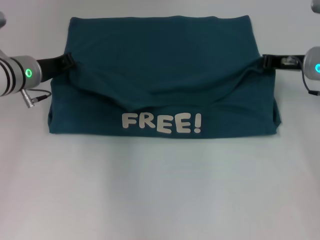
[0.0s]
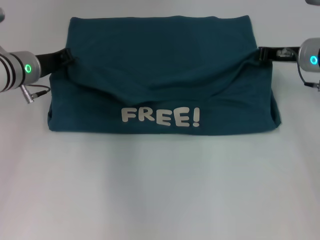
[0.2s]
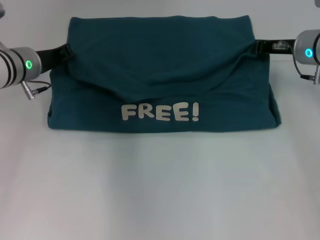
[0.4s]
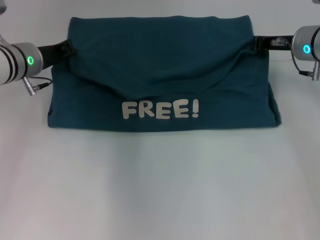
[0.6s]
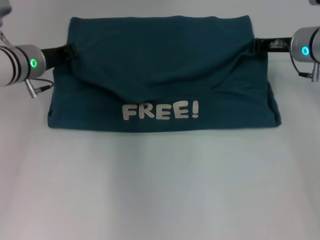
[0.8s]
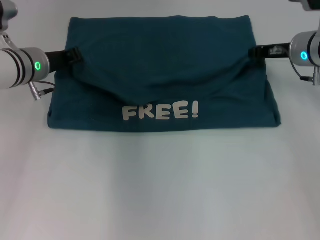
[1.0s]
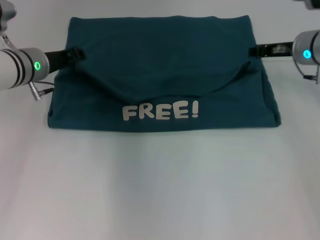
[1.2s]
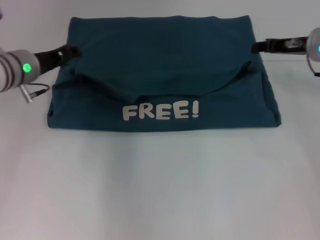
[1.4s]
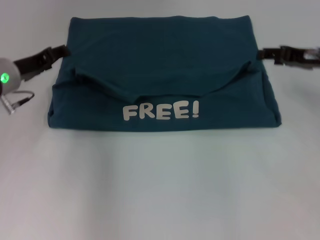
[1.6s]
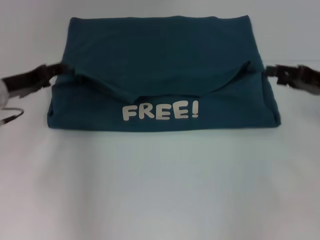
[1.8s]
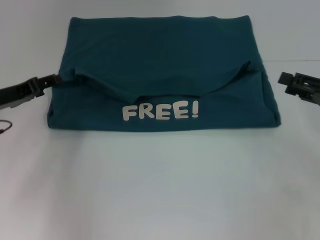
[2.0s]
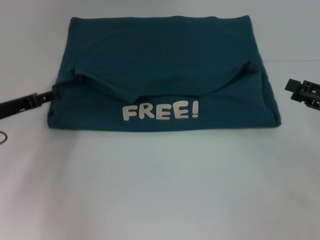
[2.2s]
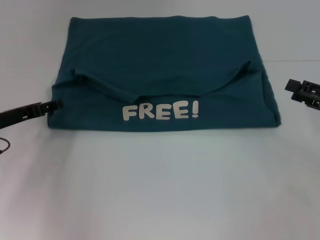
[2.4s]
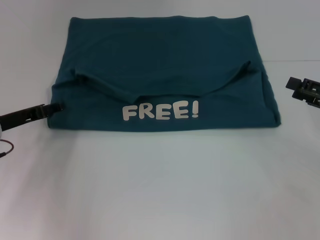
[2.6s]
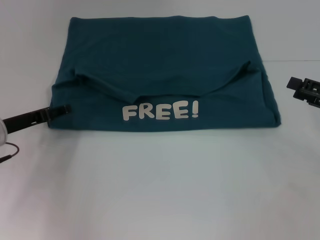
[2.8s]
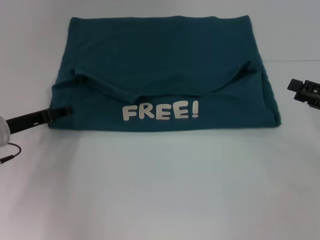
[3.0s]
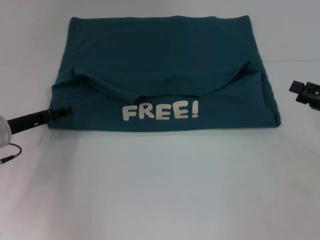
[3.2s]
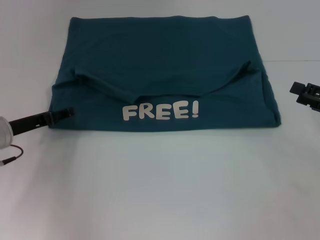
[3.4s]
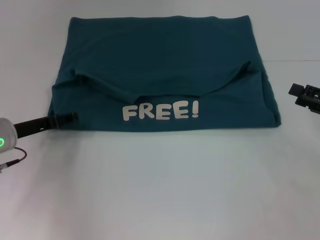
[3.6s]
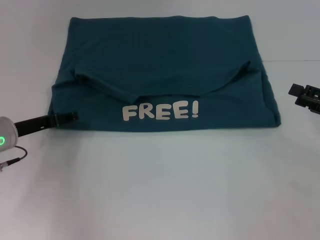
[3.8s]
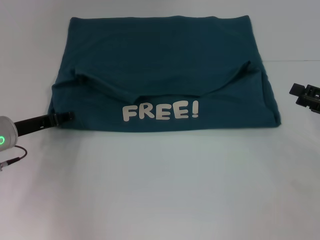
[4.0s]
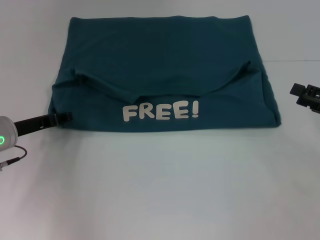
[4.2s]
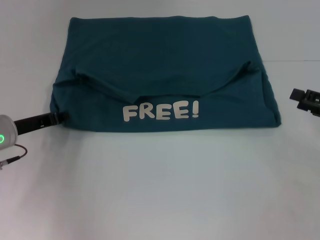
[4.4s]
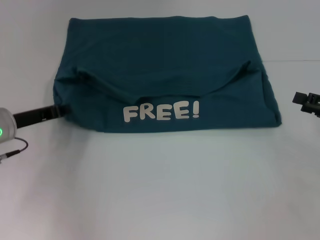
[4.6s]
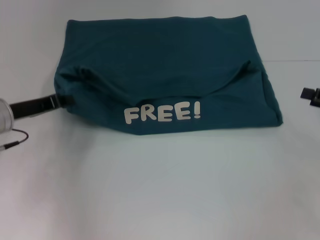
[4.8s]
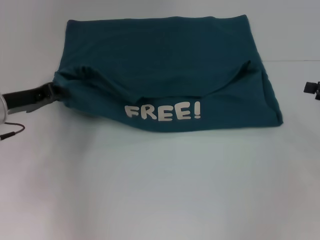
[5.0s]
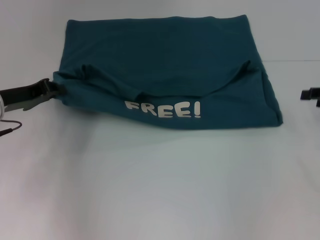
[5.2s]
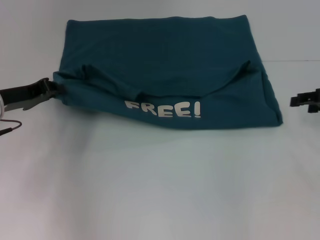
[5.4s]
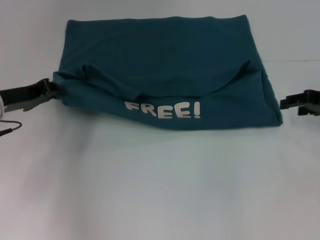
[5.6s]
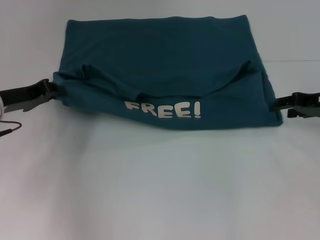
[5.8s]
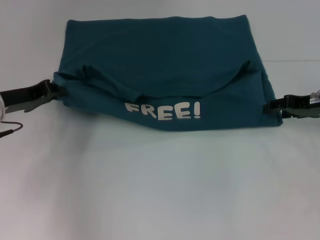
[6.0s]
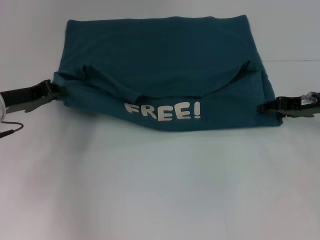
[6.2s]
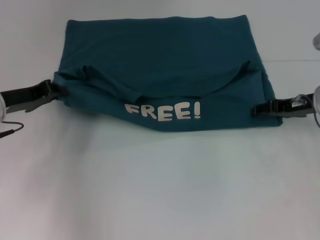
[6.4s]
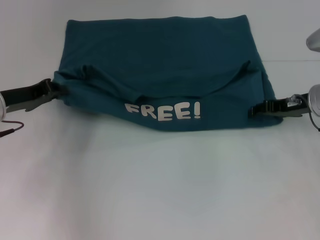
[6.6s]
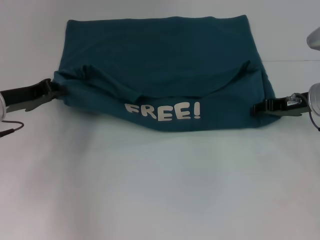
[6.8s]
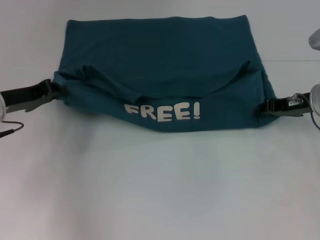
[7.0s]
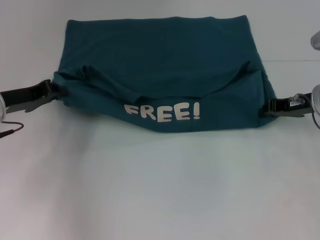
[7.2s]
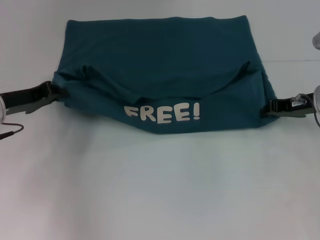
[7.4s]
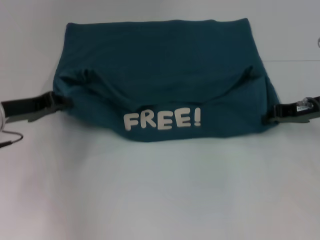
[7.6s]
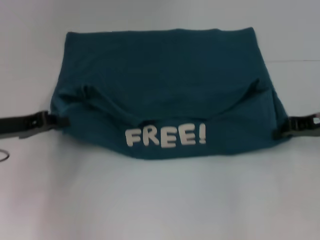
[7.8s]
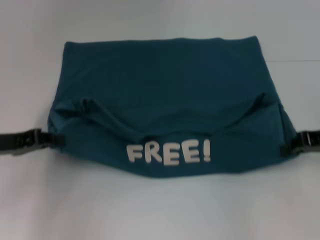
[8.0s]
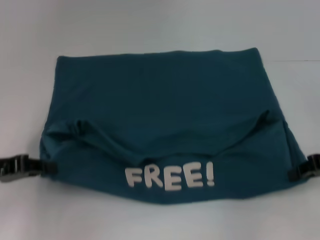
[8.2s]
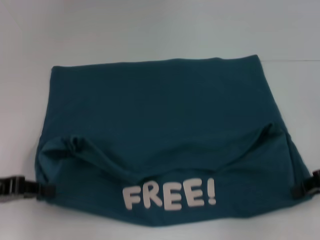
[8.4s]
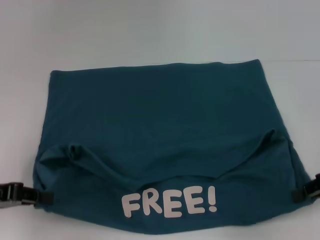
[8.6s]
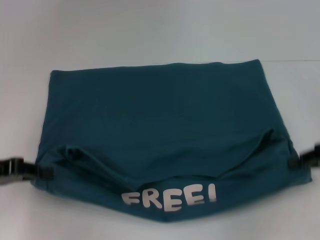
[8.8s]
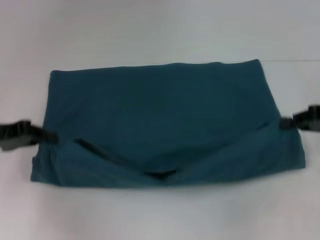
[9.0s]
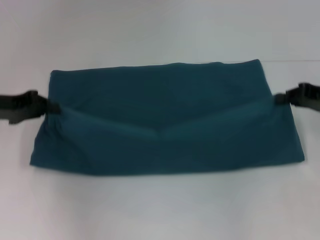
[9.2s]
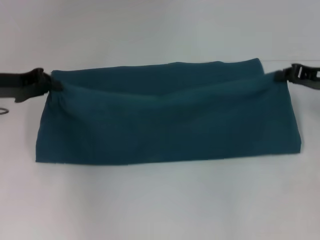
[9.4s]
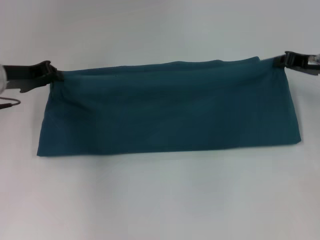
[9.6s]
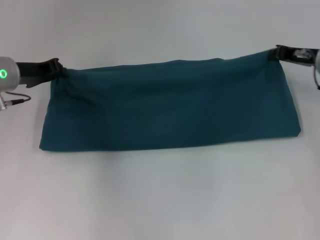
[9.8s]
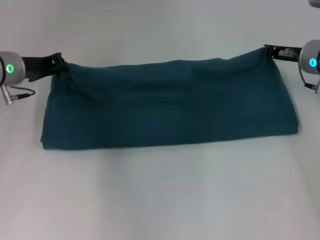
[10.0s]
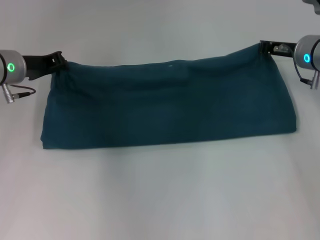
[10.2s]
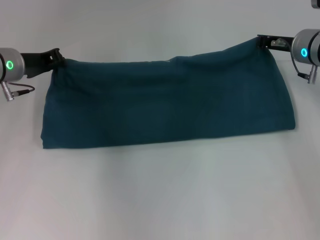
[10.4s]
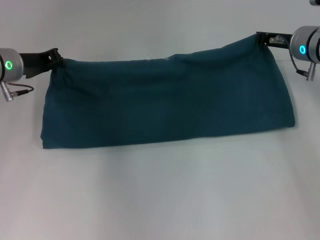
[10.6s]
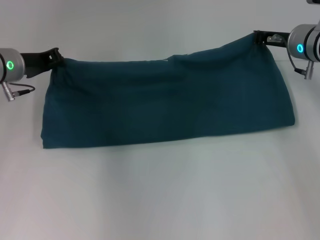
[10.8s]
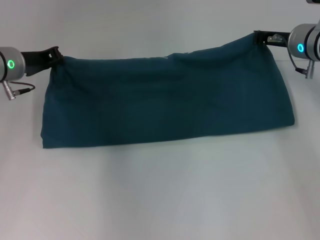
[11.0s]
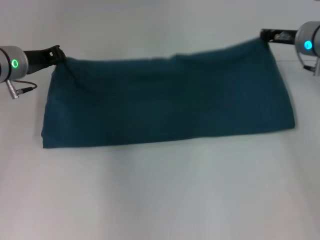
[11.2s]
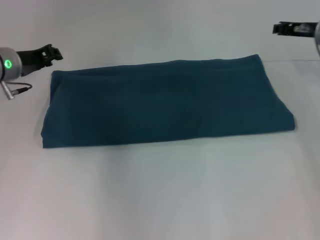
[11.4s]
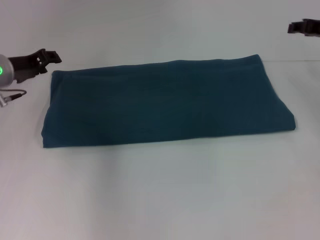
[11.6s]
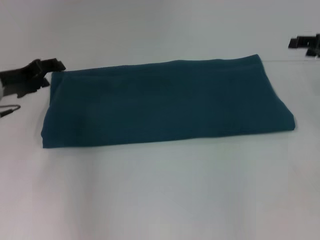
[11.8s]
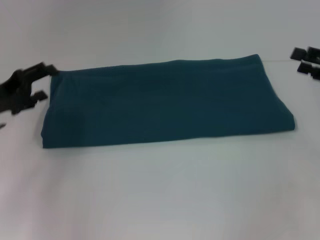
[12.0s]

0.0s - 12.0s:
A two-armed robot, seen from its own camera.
Step, 1.4s - 8.4s: Pull the clothes with your left hand.
Step, 1.4s - 8.4s: Pull the clothes with your right hand.
Step, 8.6s - 11.2s: Fold the clothes to the right.
0.0s - 1.6s: The left gripper opens; the right gripper opens up.
1.6s - 3.0s: The right gripper is displaced backward and to the right by approximately 15 cm; the left gripper is displaced downward and backward by approximately 10 cm.
3.0s - 4.4s: Both grippers stay put.
4.4s - 6.0s: The left gripper closes. Meanwhile the right gripper shifts about 10 cm forward and to the left.
6.0s - 7.6s: The right gripper closes its fingers.
7.6s - 9.0s: The right gripper goes roughly 10 cm backward and to the right.
9.0s - 10.4s: The right gripper shifts some 15 cm forward and to the left. Meanwhile the left gripper goes roughly 15 cm forward and to the right.
10.4s - 12.0s: The right gripper moves backward and to the right, approximately 15 cm, and opens up; the left gripper moves backward and to the left, roughly 10 cm, and opens its fingers.

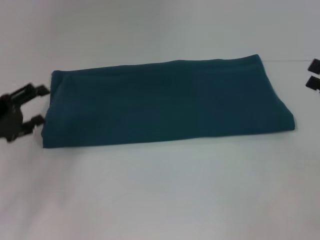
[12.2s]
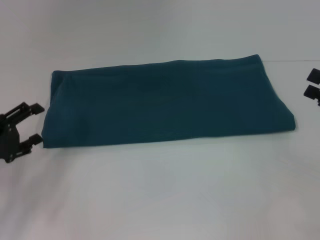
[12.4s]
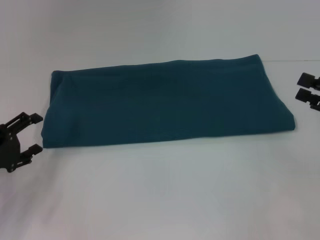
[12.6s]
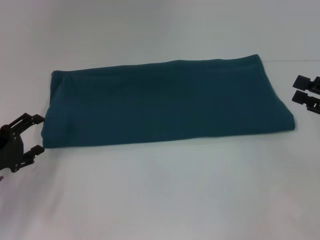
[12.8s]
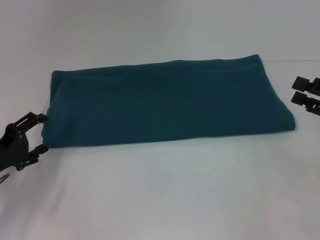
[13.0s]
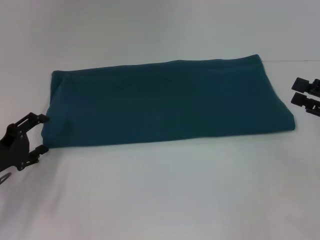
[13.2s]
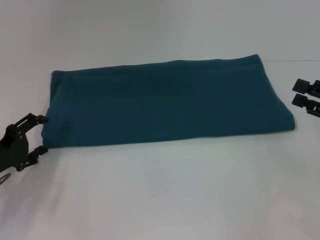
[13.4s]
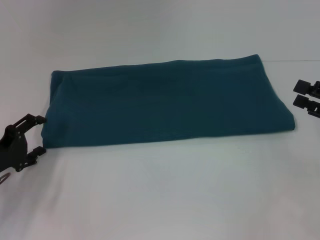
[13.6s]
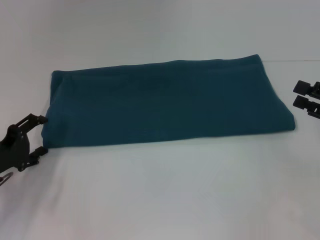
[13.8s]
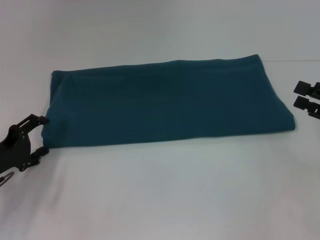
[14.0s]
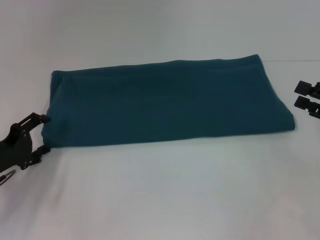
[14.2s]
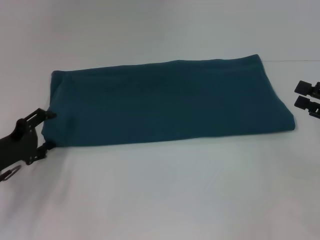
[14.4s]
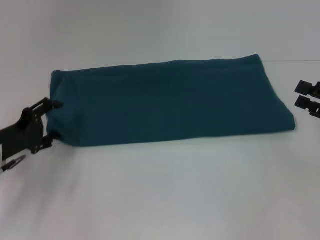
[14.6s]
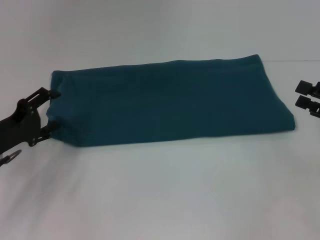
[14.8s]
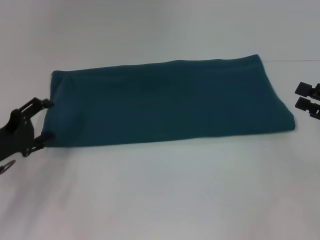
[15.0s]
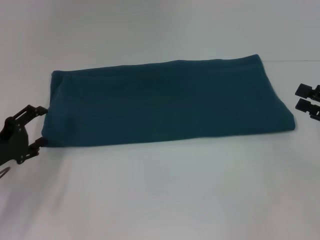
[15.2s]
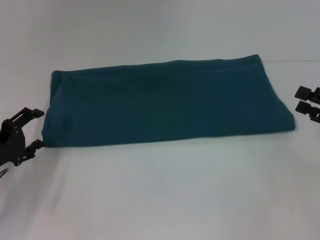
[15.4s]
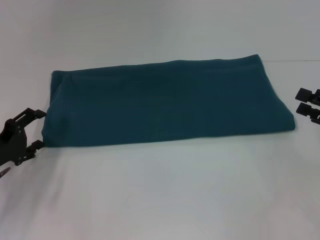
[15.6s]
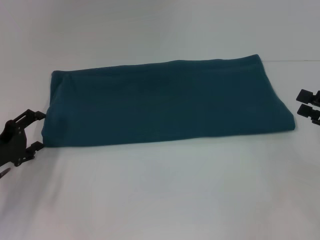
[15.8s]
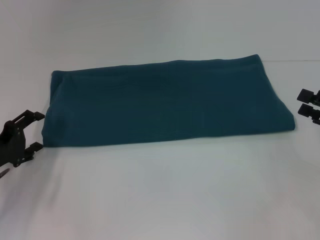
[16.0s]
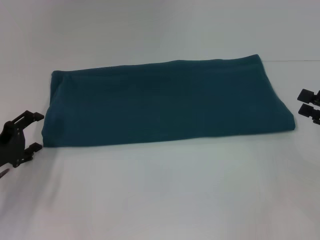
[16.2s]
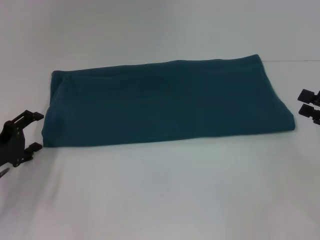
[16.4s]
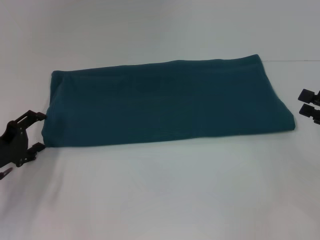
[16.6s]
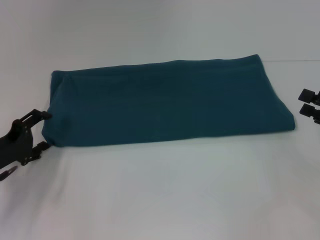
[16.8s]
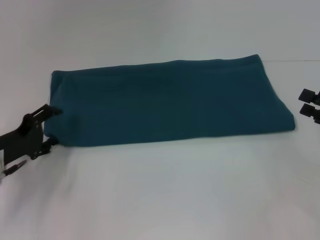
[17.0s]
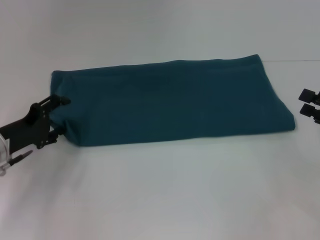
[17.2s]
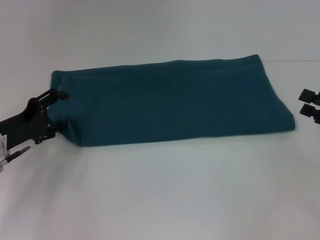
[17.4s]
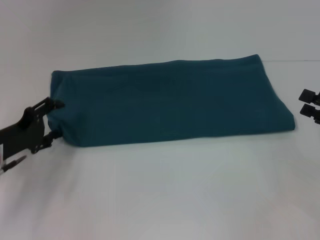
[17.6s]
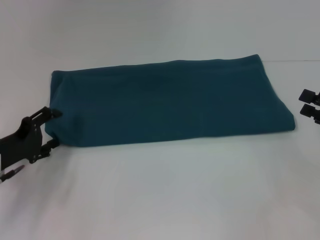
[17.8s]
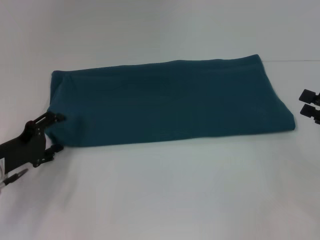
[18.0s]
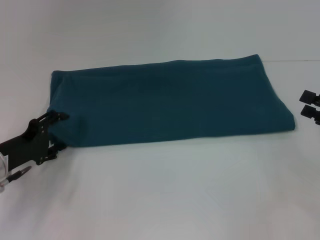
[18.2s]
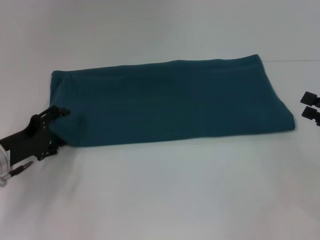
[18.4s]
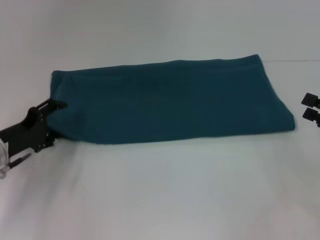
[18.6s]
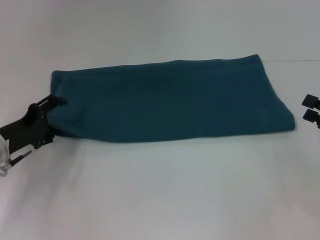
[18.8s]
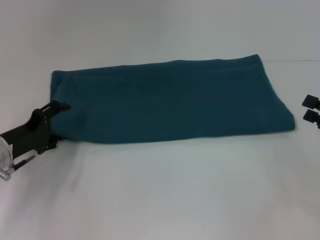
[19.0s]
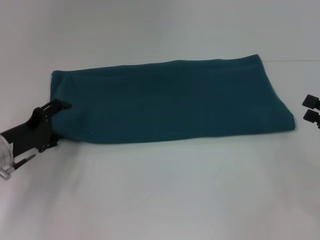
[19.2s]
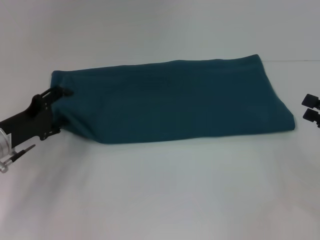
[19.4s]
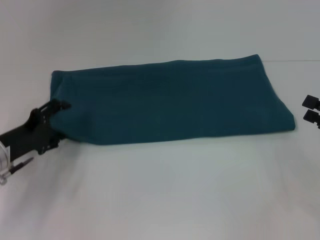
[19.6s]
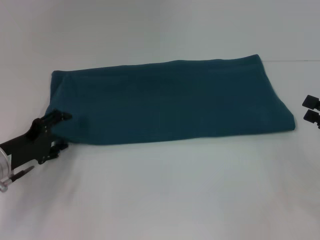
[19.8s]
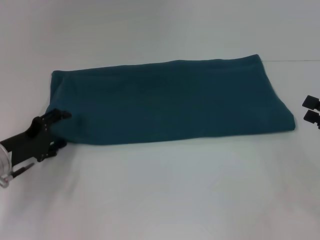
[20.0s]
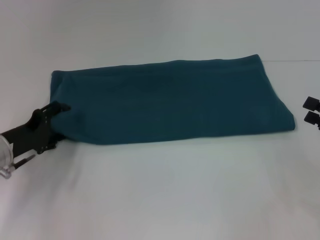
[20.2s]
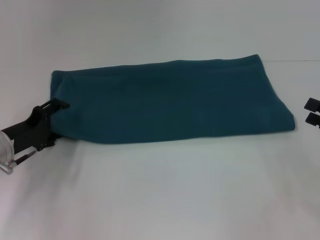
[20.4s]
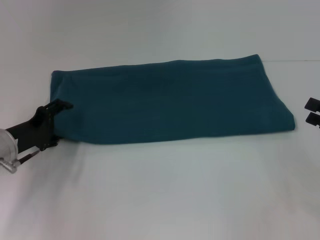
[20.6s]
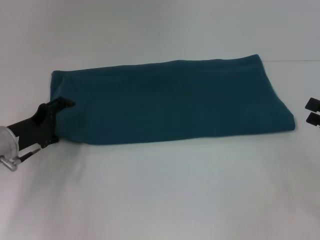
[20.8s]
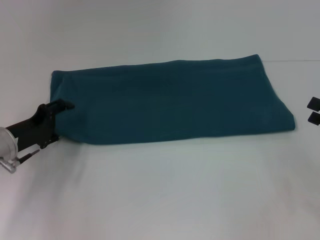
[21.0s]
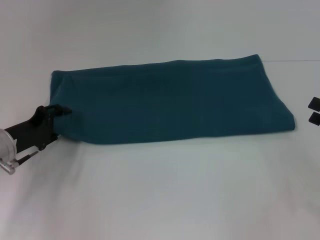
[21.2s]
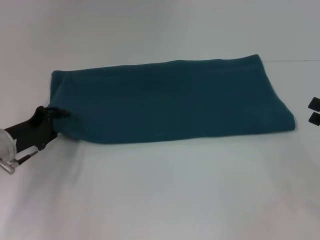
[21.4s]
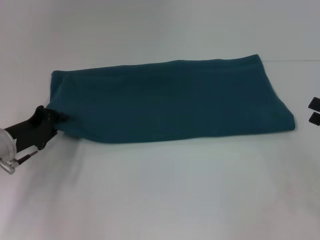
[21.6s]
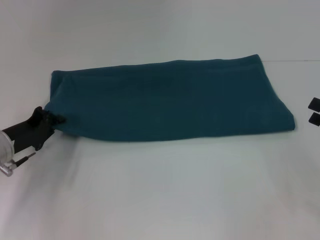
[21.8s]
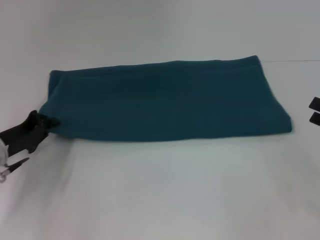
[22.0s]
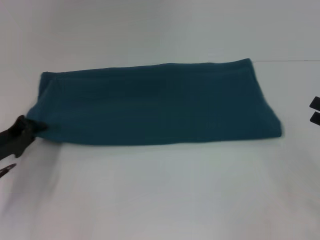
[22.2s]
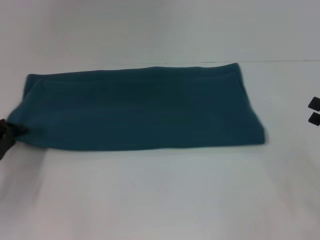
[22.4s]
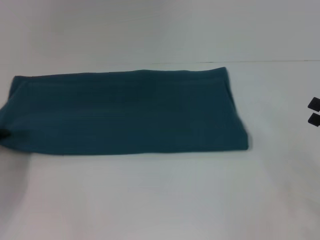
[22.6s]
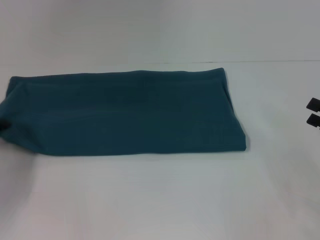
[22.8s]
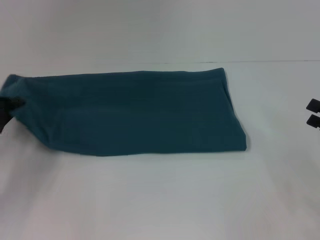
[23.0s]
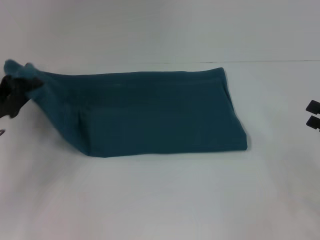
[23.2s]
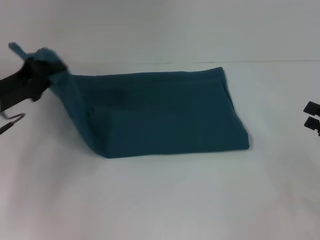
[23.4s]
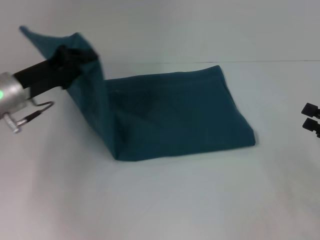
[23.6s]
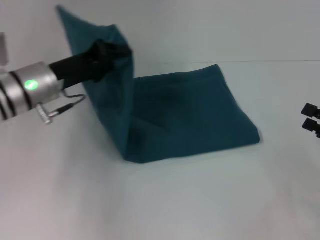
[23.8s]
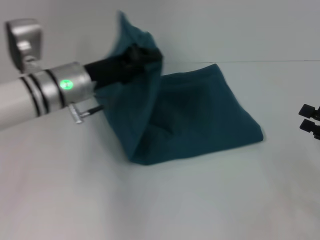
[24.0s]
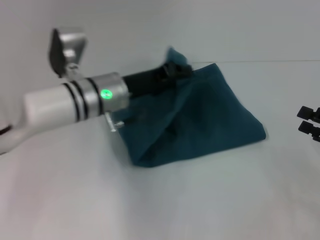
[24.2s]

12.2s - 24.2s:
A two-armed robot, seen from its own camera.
12.2s - 13.8s: The left gripper travels downward by roughly 5 cm.
13.8s - 19.8s: The grippers move only a little.
19.8s - 21.2s: The grippers move only a little.
21.2s - 22.6s: The left gripper is displaced to the left by approximately 5 cm, and closes its fingers.
22.6s - 24.2s: The left gripper travels to the right by some 25 cm.
